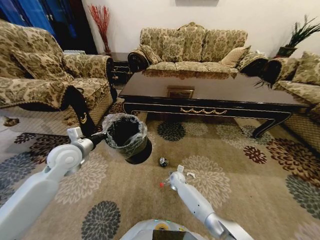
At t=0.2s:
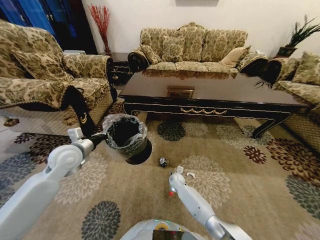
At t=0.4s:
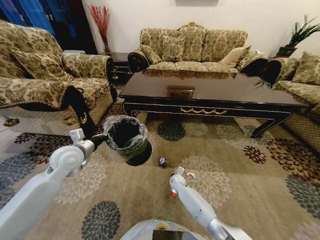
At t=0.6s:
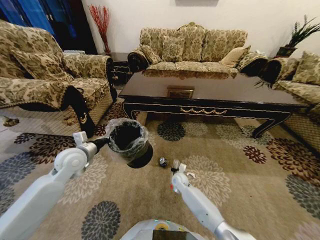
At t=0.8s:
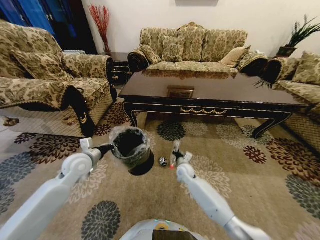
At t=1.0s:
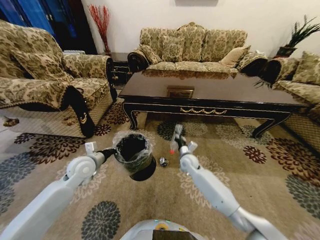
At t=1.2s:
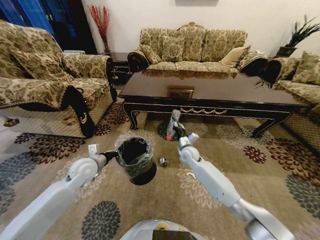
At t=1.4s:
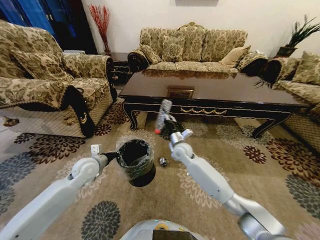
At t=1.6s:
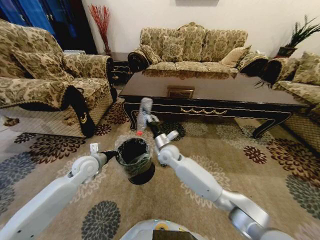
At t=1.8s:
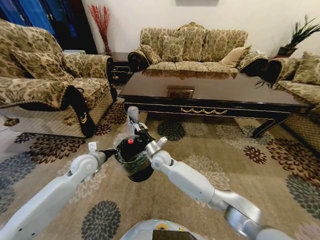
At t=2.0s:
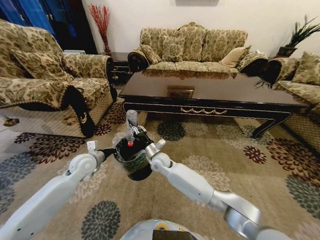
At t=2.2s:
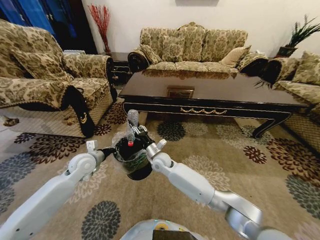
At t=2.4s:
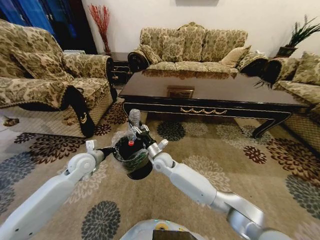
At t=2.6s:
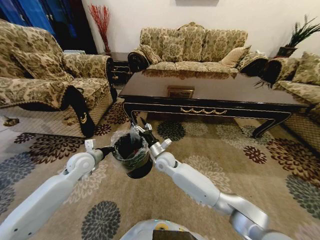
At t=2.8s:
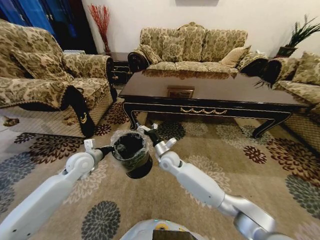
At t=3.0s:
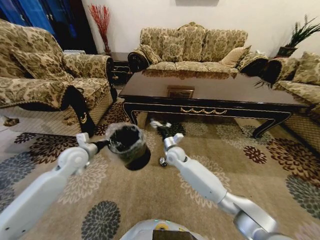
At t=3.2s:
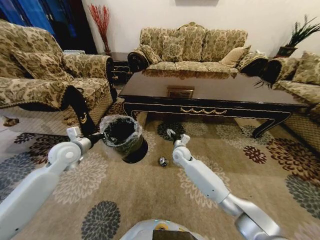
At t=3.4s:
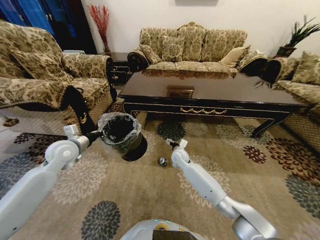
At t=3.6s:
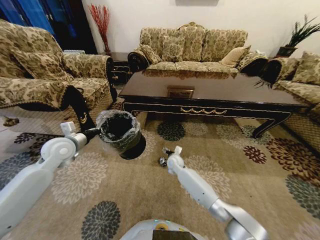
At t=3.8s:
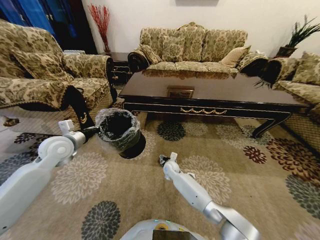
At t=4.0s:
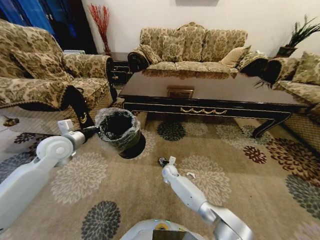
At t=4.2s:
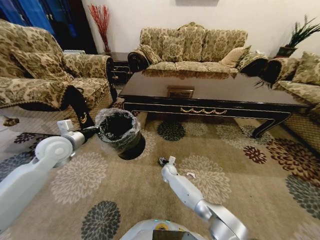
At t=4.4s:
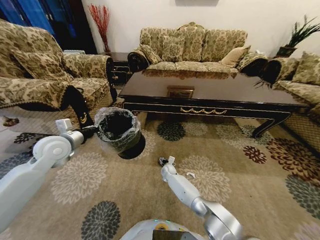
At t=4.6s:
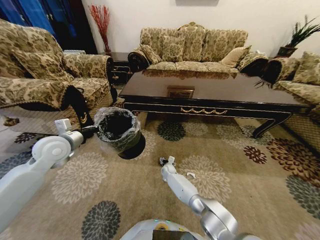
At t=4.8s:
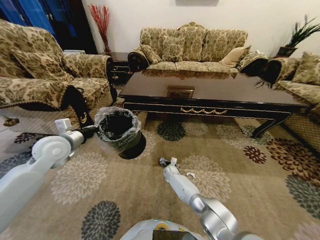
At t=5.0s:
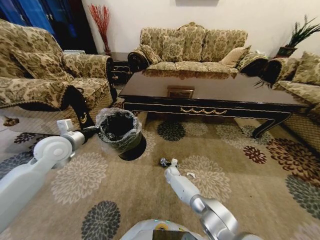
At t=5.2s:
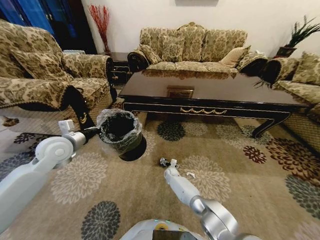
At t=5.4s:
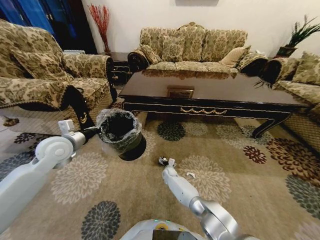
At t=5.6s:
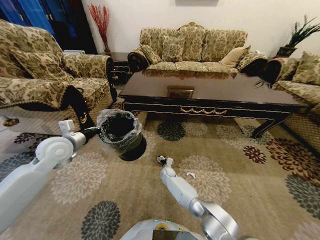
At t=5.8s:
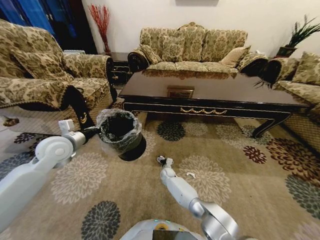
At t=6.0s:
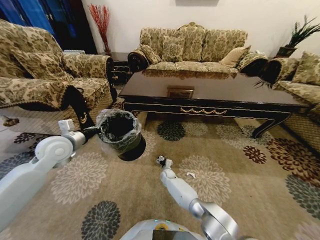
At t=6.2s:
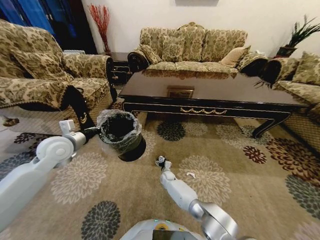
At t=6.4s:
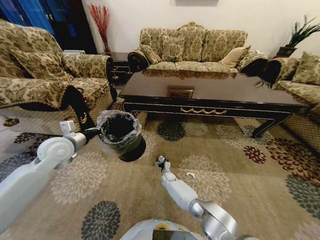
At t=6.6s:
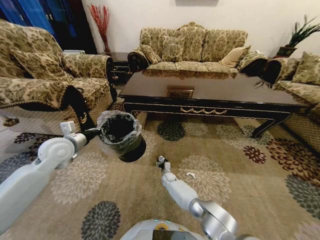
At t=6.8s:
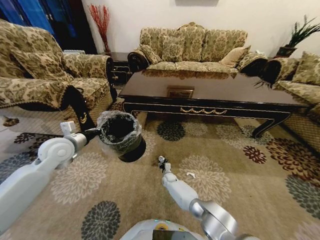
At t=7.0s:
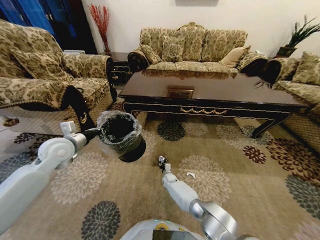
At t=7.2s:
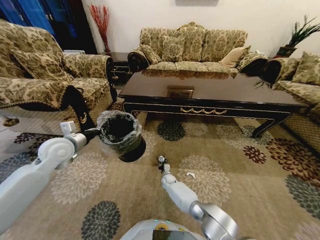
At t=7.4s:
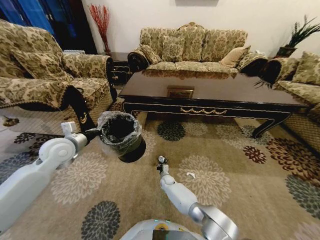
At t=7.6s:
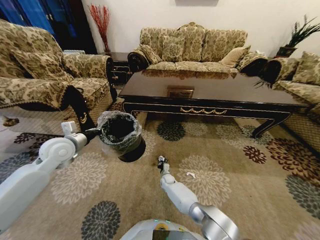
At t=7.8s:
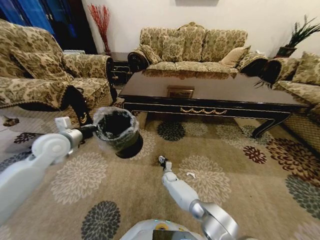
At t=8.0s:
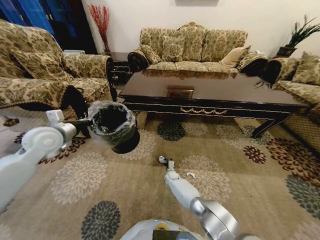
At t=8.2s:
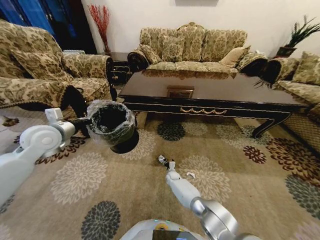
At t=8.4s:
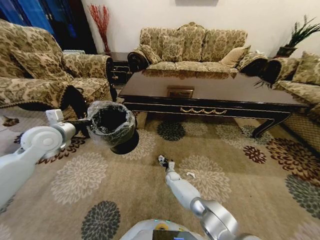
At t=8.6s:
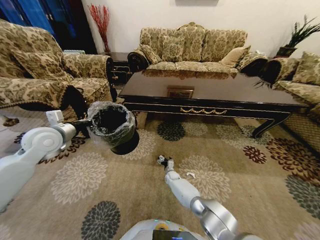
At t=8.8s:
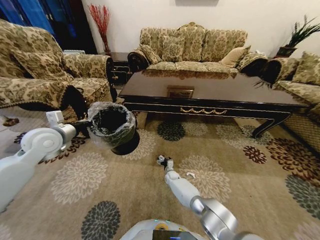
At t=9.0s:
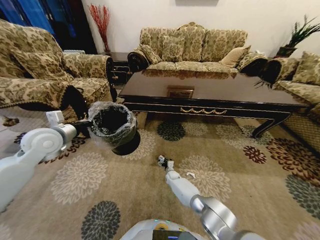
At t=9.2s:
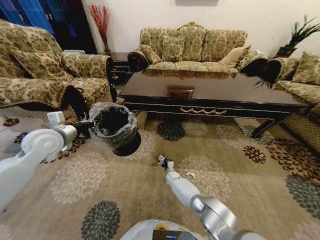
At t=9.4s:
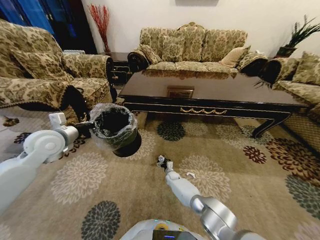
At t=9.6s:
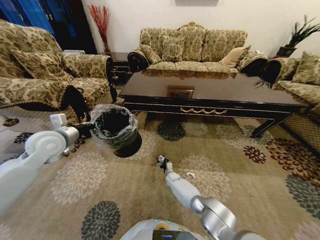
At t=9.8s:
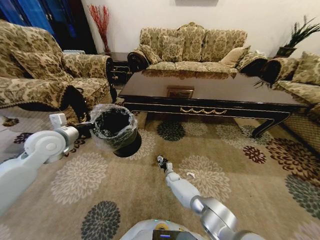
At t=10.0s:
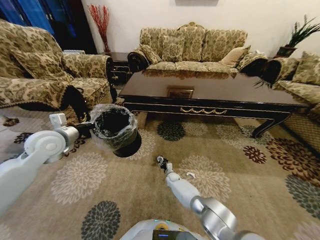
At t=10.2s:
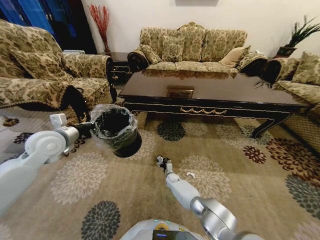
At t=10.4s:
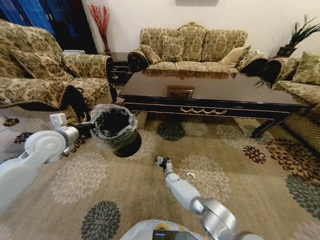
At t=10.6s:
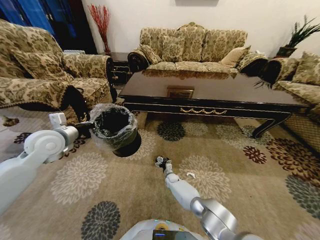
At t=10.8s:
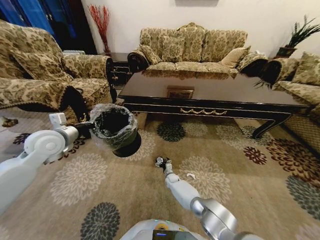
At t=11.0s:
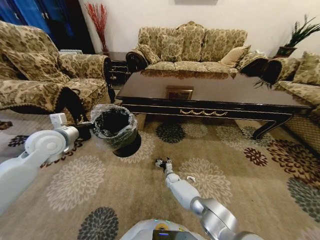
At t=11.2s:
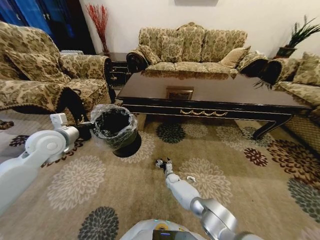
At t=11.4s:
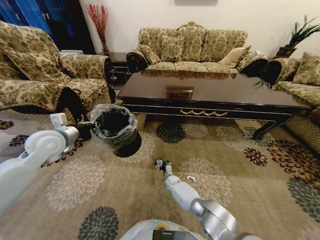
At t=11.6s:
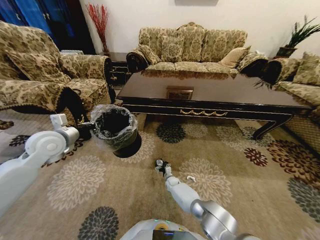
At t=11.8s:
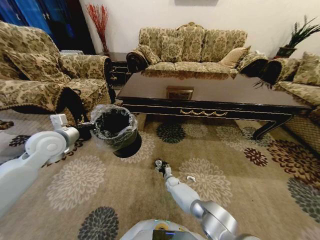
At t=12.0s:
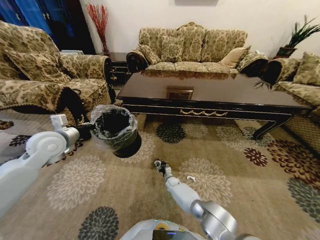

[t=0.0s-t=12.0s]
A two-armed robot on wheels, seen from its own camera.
Task of the whole recording: Move to the front of the table and pick up the trash from the floor, then place it into the trash bin.
t=0.0s to t=1.6s: The left gripper travels downward by approximately 10 cm. The right gripper heads upward, covering about 25 cm, and closes.
t=1.6s to t=3.0s: The right gripper ends up some 5 cm from where it was, and opens its fingers. The left gripper goes approximately 5 cm upward.
t=3.0s to t=4.4s: The right gripper shifts about 20 cm downward. The left gripper goes roughly 5 cm upward.
t=4.4s to t=6.0s: The grippers make only small movements.
t=6.0s to t=7.6s: The right gripper closes its fingers.
t=7.6s to t=9.0s: The right gripper opens its fingers, while the left gripper shifts by roughly 5 cm.
t=9.0s to t=10.4s: The right gripper closes, then reopens.
t=10.4s to t=12.0s: The grippers stay close to where they were, moving slightly.

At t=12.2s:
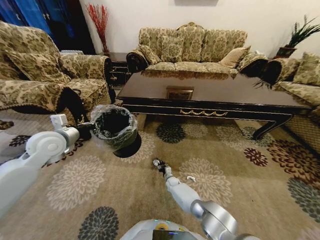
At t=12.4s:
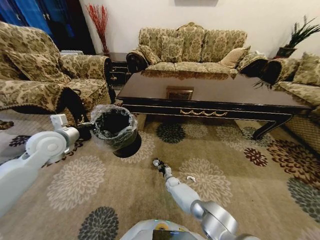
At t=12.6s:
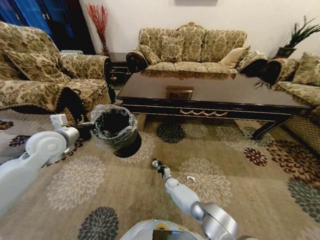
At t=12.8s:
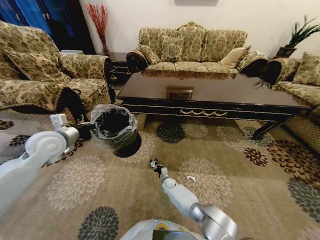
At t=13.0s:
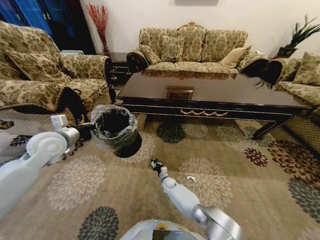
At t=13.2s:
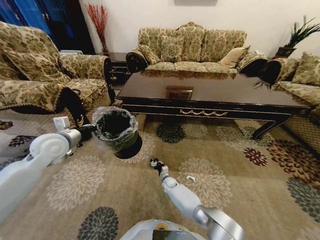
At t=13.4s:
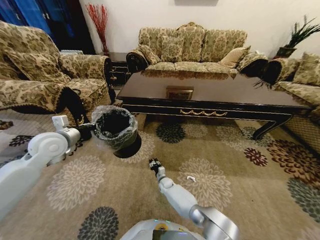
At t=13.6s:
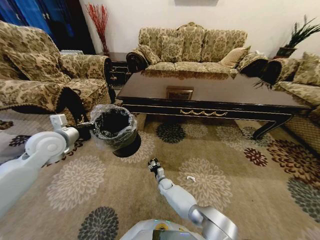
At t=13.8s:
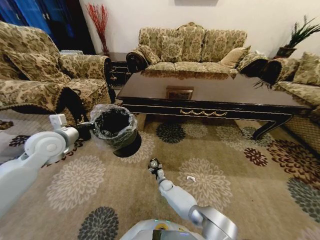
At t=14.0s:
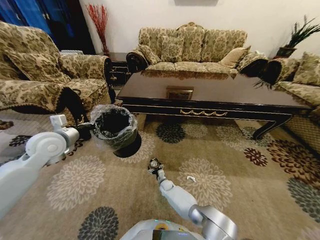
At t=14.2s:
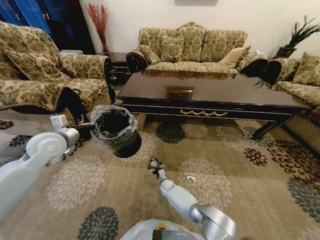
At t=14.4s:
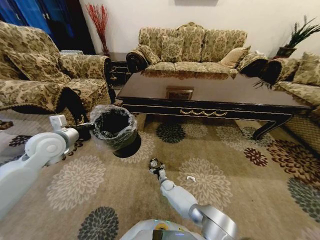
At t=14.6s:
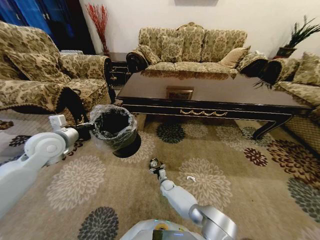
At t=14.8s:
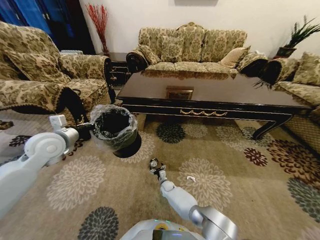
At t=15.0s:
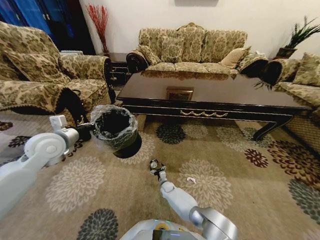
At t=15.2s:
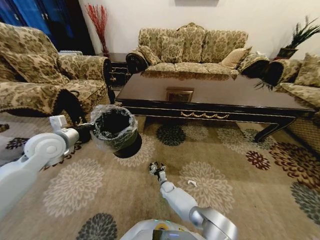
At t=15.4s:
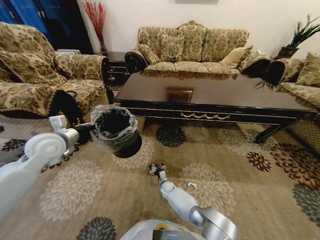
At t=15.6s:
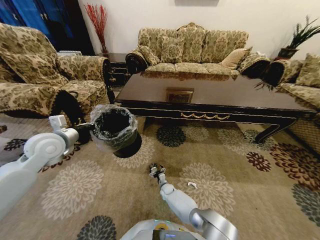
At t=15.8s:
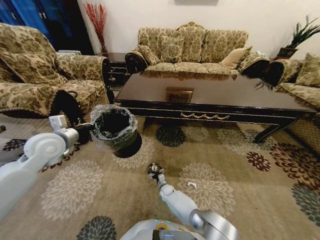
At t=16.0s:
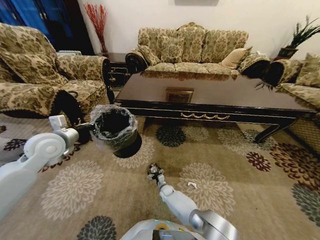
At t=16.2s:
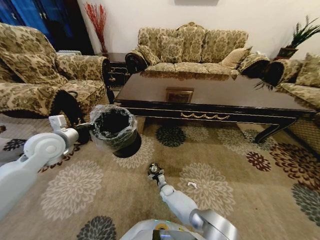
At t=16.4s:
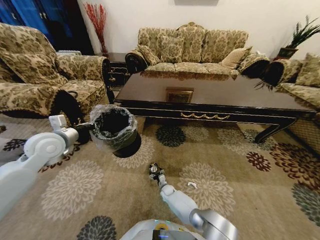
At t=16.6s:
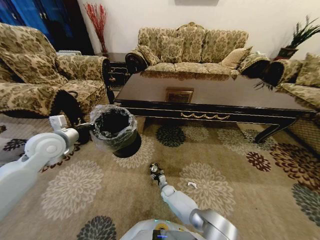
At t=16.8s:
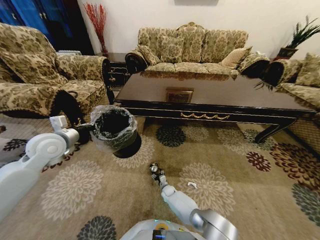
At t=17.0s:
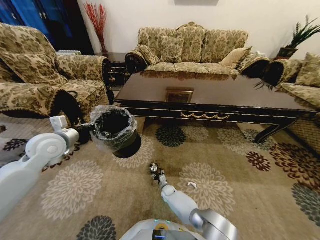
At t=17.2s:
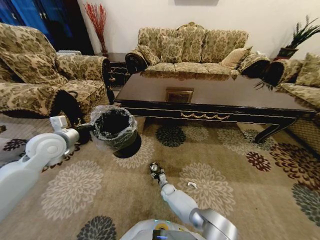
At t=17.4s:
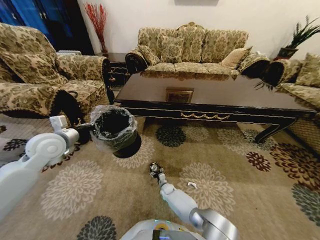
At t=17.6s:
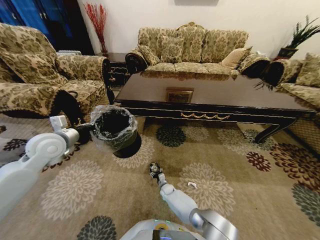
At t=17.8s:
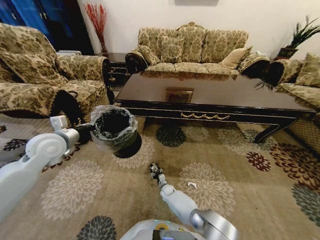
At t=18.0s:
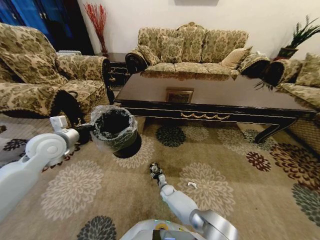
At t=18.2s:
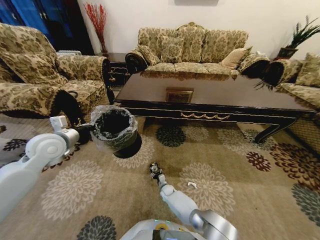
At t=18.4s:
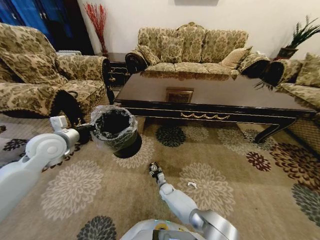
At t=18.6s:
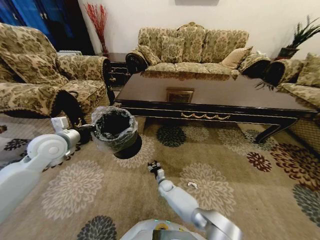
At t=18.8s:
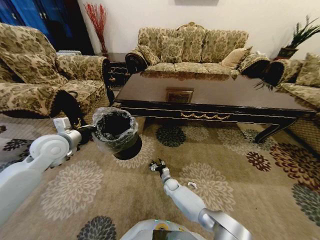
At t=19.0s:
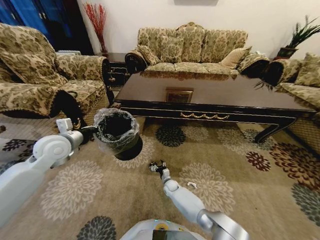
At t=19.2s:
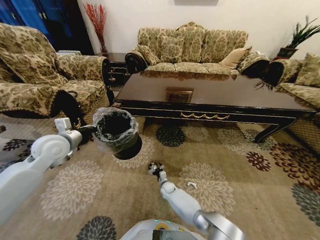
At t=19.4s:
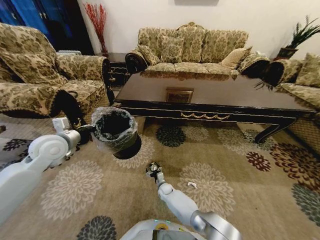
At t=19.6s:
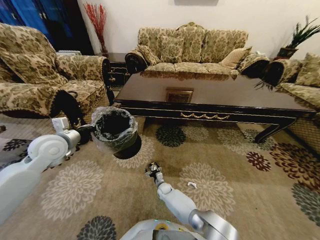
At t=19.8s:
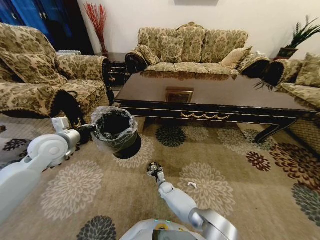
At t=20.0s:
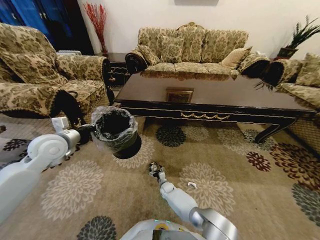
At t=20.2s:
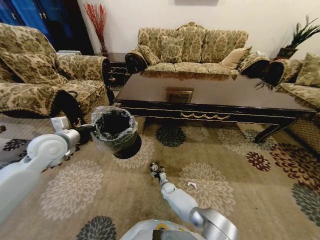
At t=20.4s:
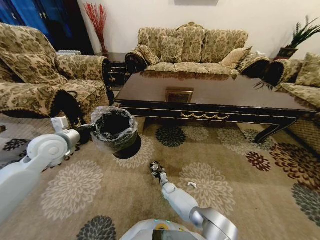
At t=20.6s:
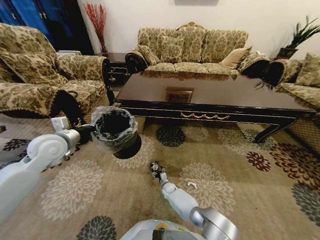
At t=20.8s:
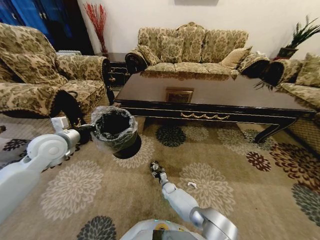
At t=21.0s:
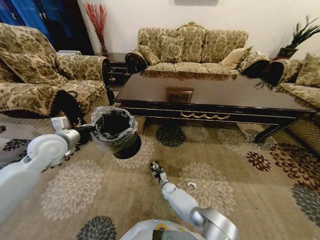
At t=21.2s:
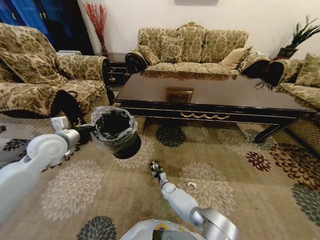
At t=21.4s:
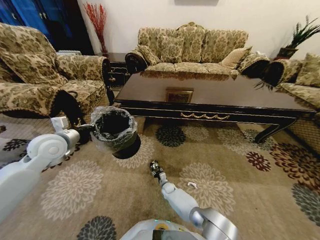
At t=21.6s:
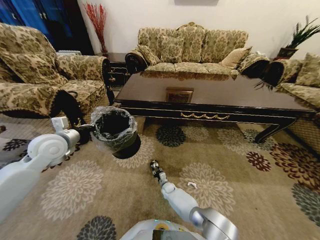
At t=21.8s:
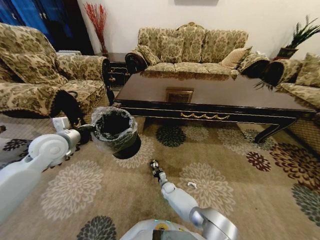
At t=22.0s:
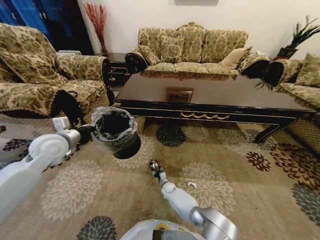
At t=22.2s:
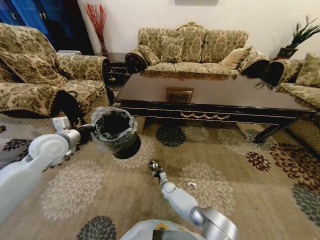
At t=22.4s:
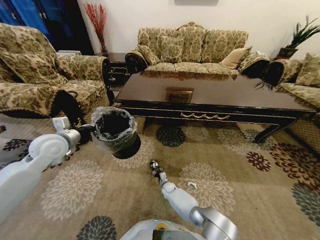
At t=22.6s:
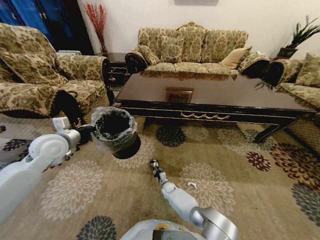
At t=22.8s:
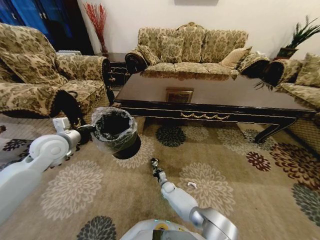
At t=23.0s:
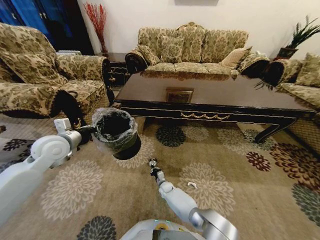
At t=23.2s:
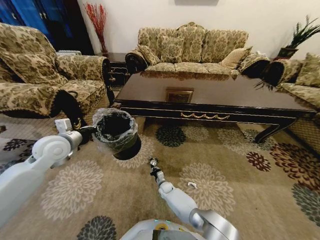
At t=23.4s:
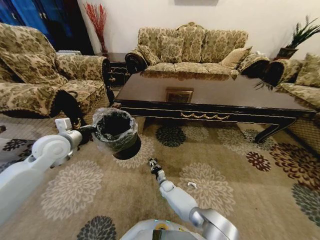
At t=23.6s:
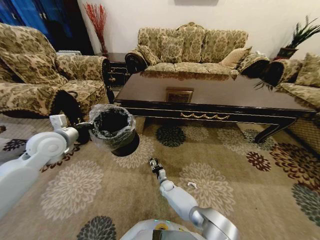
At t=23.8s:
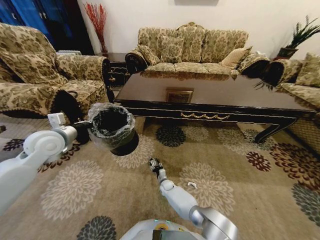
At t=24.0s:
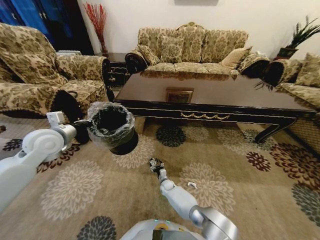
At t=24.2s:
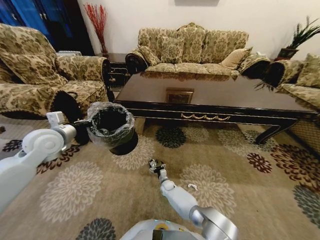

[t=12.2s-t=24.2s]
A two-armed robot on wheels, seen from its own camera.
Task of the whole recording: Move to the front of the table and pick up the trash from the floor, then place it into the trash bin.
t=12.2s to t=13.8s: The right gripper changes place by some 5 cm, and closes, then opens again.
t=13.8s to t=16.6s: The grippers move only a little.
t=16.6s to t=18.2s: Both grippers stay put.
t=18.2s to t=19.8s: The right gripper opens.
t=19.8s to t=21.2s: The right gripper closes.
t=21.2s to t=22.6s: Both grippers stay put.
t=22.6s to t=24.2s: The right gripper opens up.
